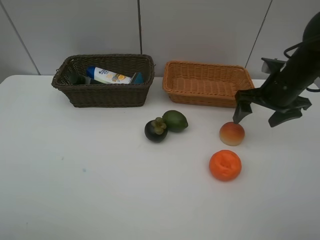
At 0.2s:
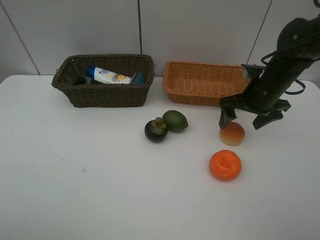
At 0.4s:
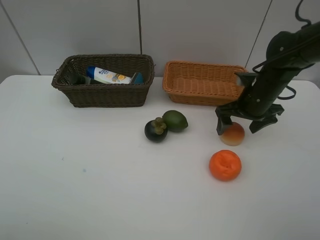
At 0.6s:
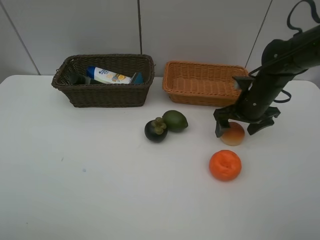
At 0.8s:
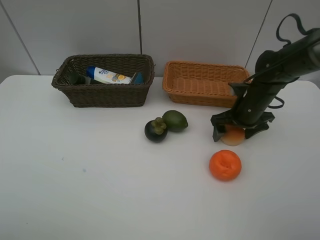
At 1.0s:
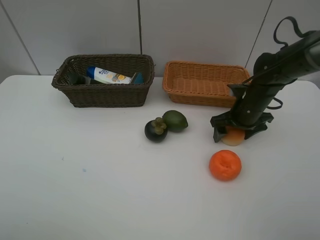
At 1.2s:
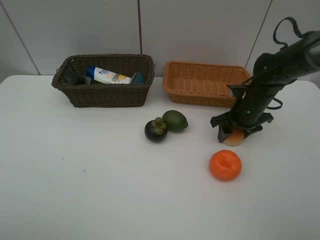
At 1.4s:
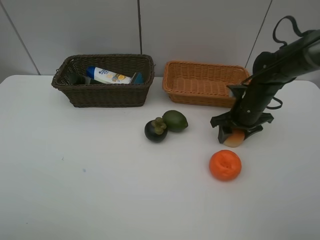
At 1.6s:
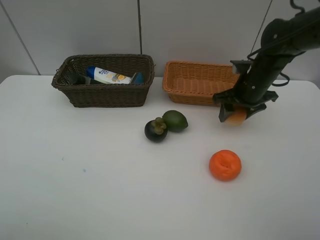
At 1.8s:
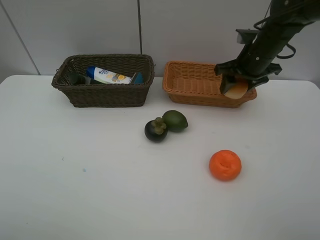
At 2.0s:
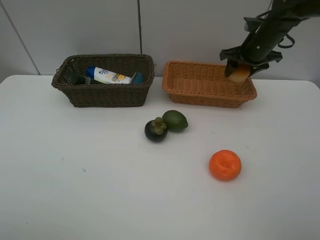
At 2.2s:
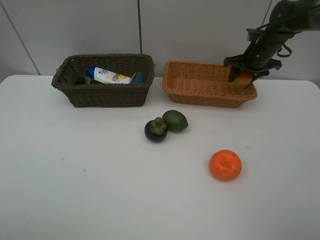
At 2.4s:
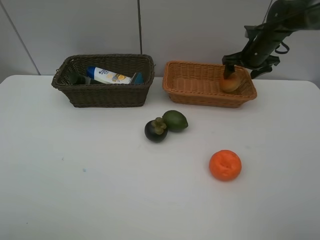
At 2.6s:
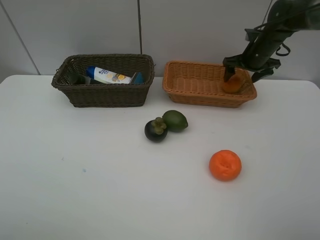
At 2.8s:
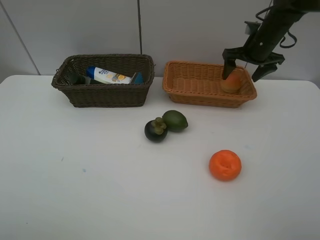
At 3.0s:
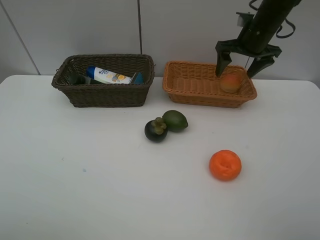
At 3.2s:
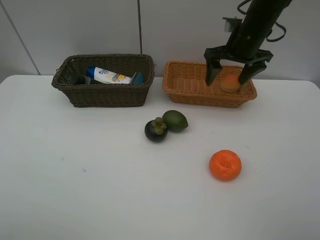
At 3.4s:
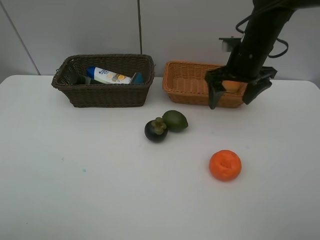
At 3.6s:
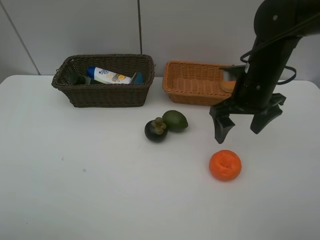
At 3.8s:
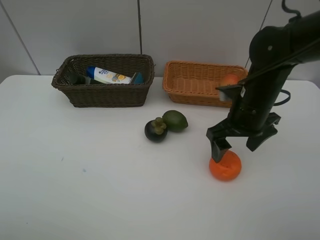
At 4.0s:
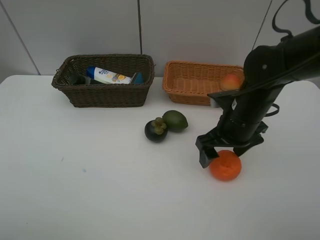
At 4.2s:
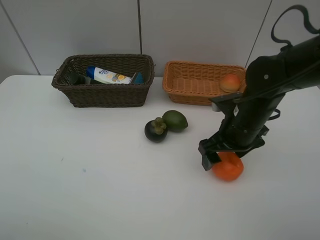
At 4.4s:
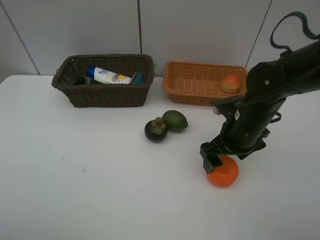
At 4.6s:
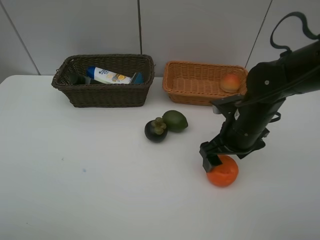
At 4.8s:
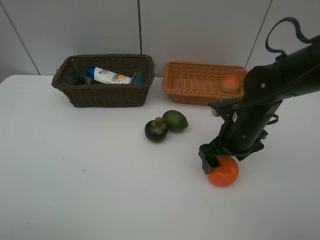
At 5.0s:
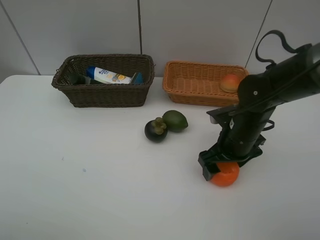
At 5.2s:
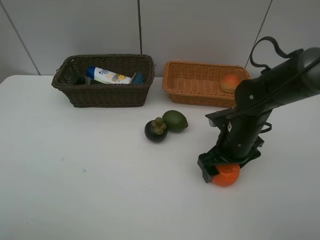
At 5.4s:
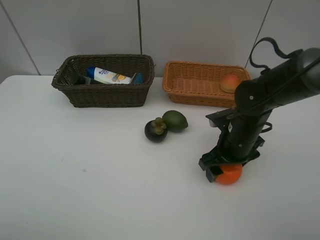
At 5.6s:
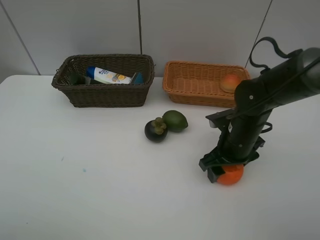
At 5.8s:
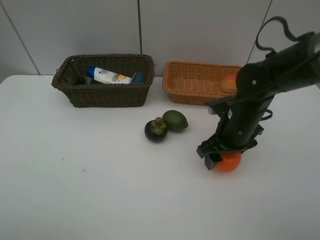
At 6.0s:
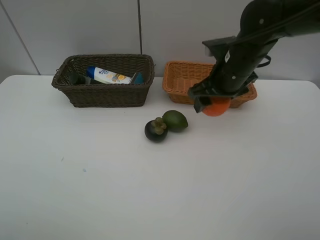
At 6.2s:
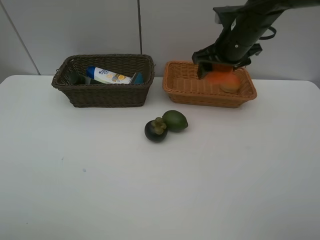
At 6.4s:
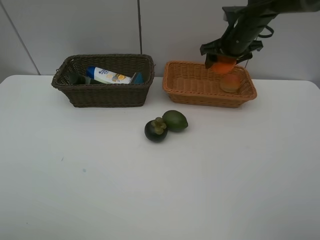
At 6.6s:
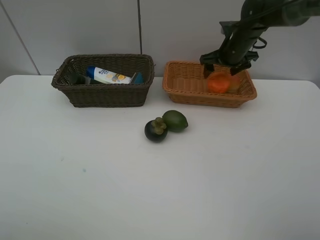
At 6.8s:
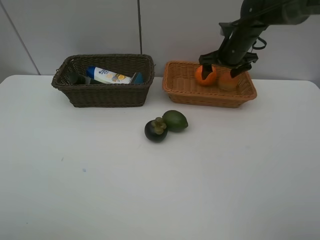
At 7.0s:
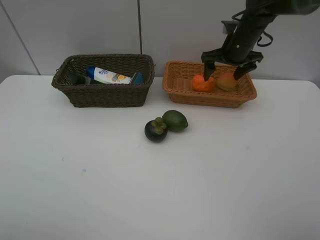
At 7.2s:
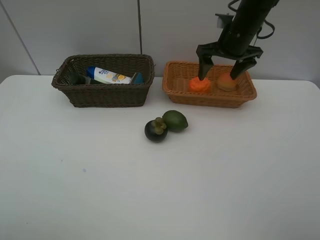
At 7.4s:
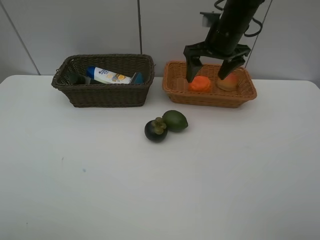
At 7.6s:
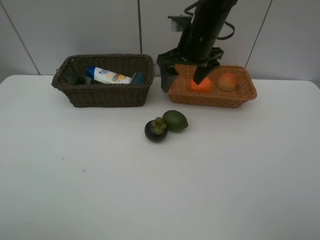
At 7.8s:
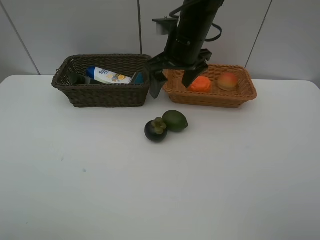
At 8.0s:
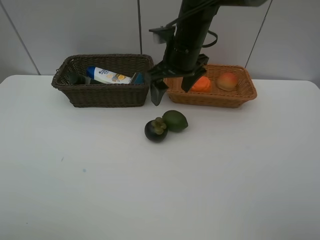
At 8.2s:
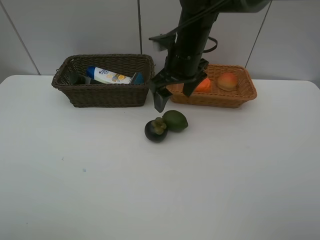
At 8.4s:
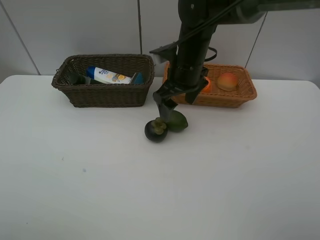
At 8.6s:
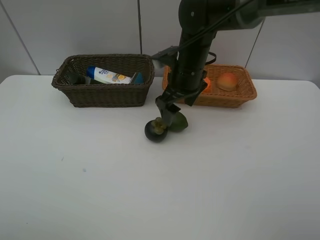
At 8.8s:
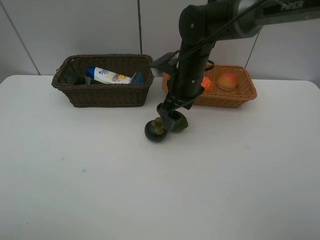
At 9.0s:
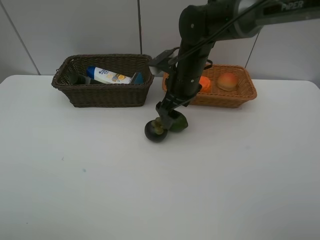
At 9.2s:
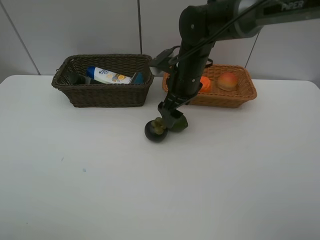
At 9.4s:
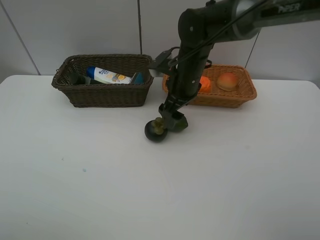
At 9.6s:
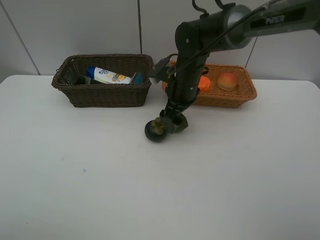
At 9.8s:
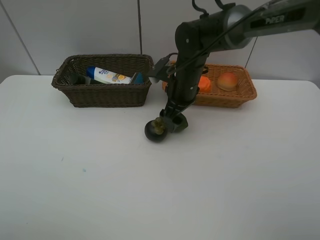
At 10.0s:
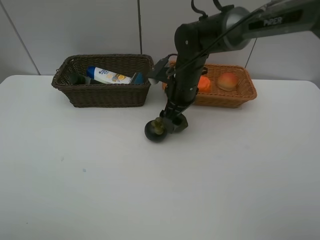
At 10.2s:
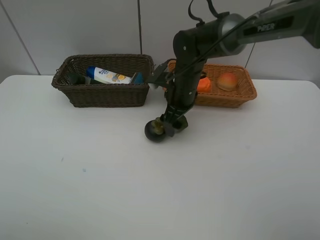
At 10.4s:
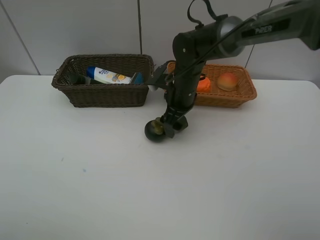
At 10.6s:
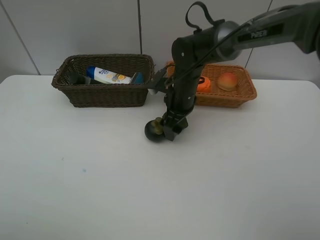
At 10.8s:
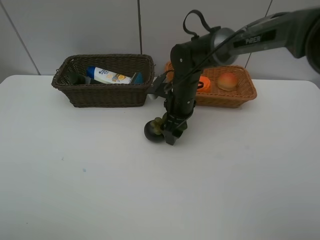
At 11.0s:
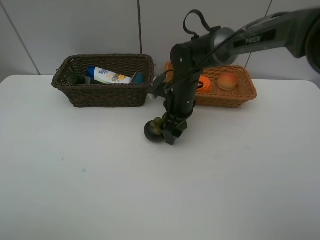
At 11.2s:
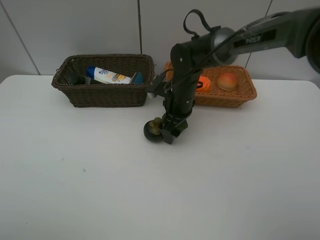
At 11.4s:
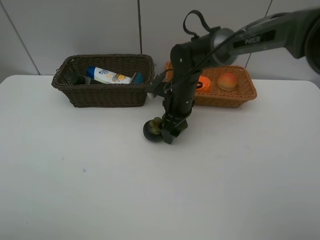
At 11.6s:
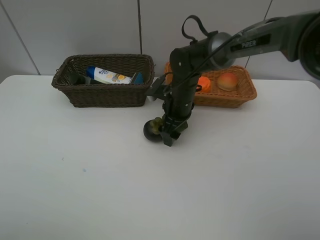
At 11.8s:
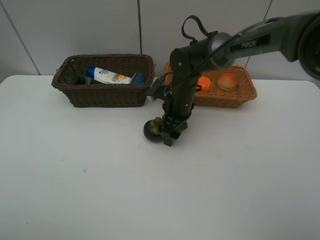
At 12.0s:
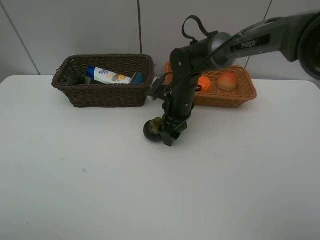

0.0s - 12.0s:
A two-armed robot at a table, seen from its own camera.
Task of the whole recording: Place multiple objects separately in different baskets.
Step, 1.6s - 2.6s: Place the egg yolk pastry in the light basket with right gripper.
Step, 2.8s - 5.8s: Pick up the orange with right gripper.
Step, 6.0s - 6.8s: Place the orange in the light basket with right gripper.
0.0s - 1.6s: The right gripper travels downward and back again, approximately 10 cm each way, and closes.
1.6s - 3.0s: The right gripper heads upward and forward, covering about 10 cm, and opens its fingers.
3.0s - 4.4s: The right gripper shifts approximately 20 cm backward and downward.
4.4s - 6.0s: The right gripper shifts approximately 10 cm forward and upward, and closes its fingers.
6.0s - 7.6s: The right gripper shifts approximately 10 cm to the left, goes forward and returns, some 15 cm each way, and opens.
7.6s - 9.0s: The right gripper heads downward, covering approximately 5 cm.
9.0s - 10.4s: The grippers move only a little.
10.4s - 12.0s: There are only small adjustments of the grippers.

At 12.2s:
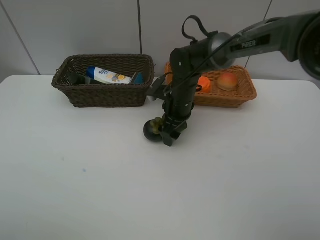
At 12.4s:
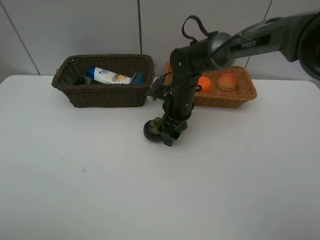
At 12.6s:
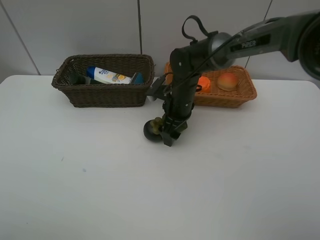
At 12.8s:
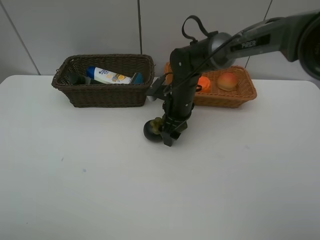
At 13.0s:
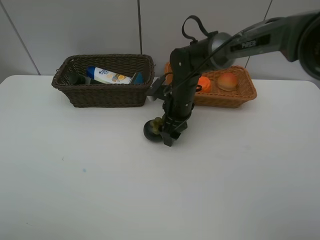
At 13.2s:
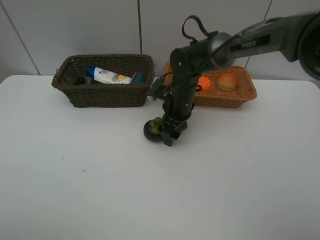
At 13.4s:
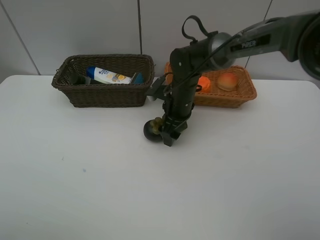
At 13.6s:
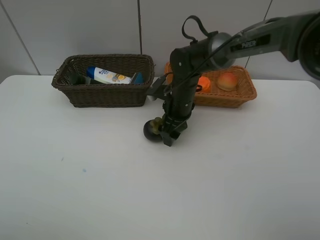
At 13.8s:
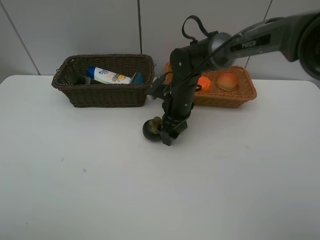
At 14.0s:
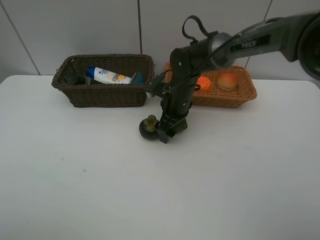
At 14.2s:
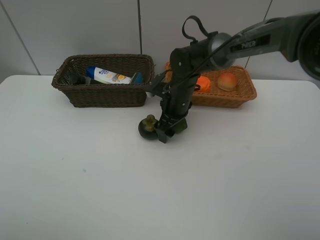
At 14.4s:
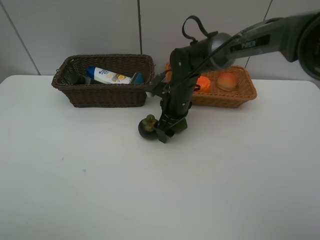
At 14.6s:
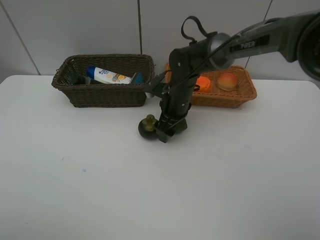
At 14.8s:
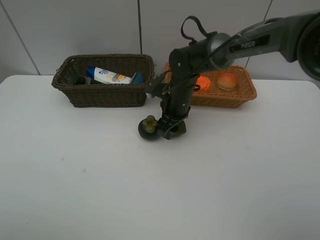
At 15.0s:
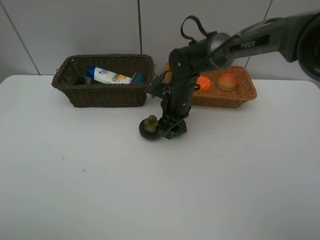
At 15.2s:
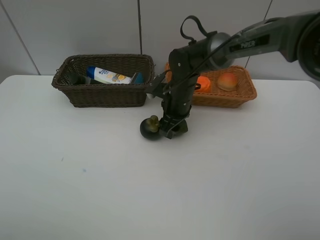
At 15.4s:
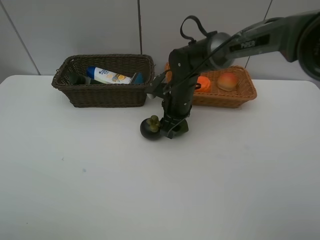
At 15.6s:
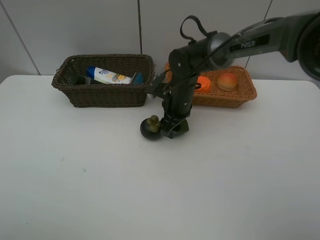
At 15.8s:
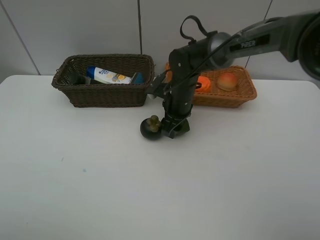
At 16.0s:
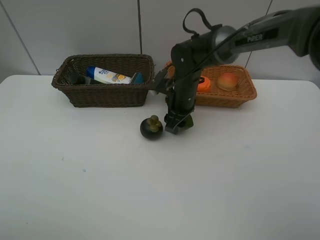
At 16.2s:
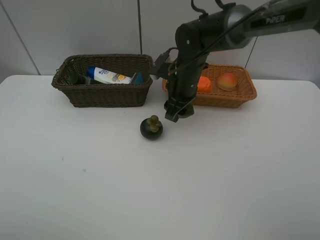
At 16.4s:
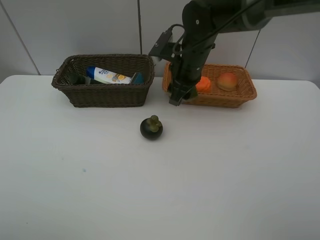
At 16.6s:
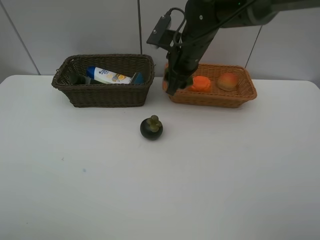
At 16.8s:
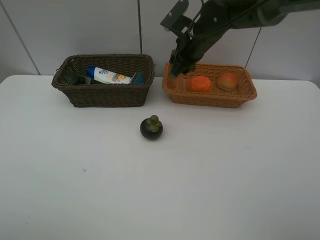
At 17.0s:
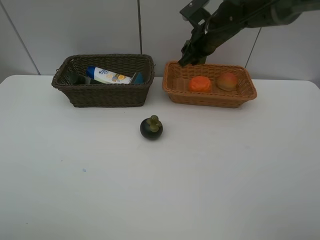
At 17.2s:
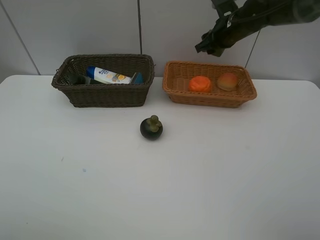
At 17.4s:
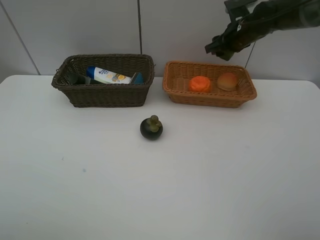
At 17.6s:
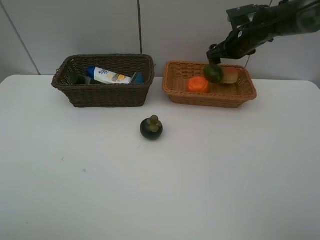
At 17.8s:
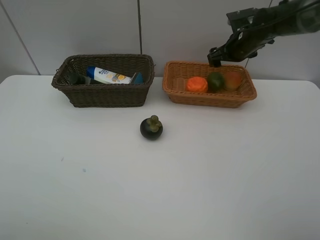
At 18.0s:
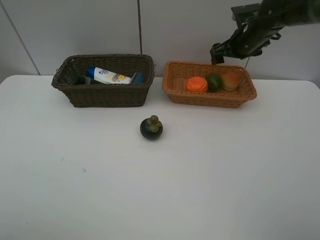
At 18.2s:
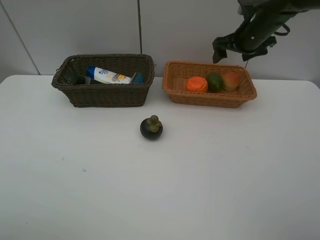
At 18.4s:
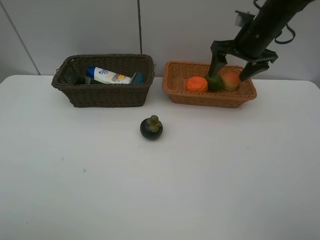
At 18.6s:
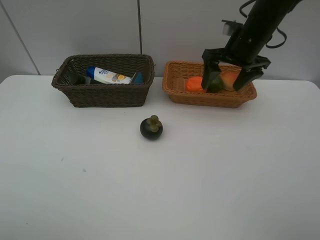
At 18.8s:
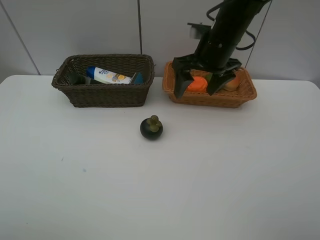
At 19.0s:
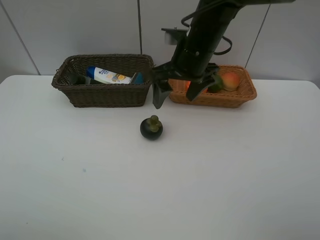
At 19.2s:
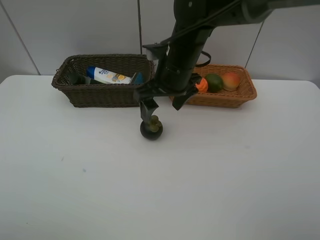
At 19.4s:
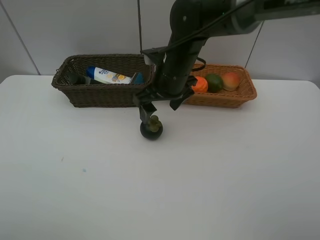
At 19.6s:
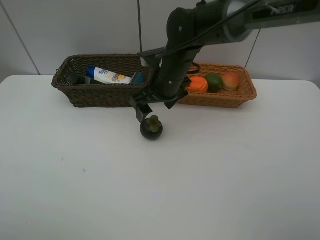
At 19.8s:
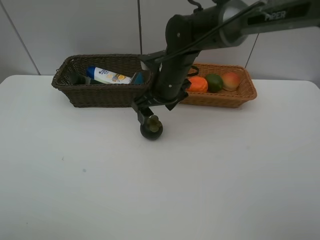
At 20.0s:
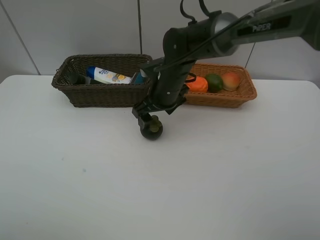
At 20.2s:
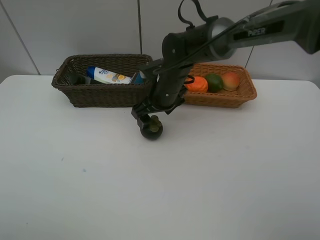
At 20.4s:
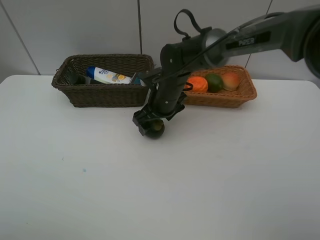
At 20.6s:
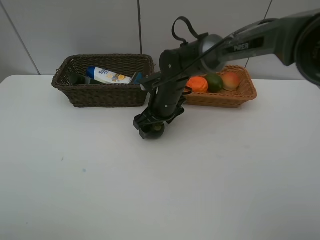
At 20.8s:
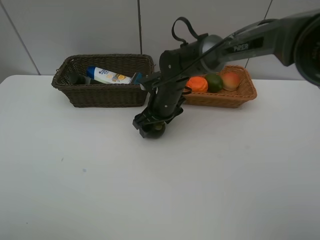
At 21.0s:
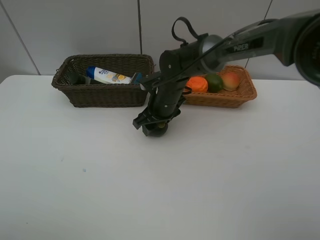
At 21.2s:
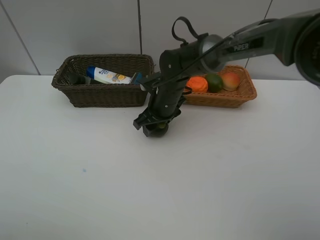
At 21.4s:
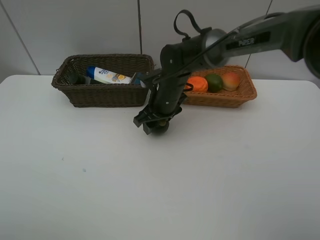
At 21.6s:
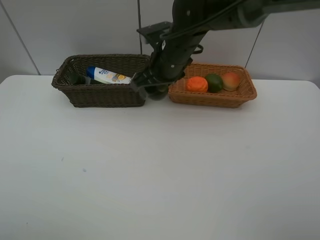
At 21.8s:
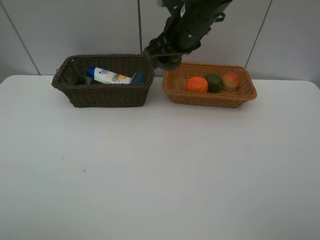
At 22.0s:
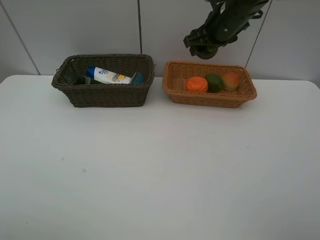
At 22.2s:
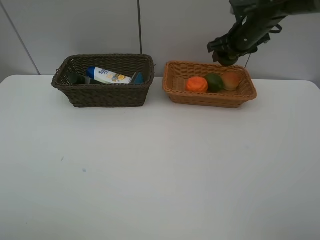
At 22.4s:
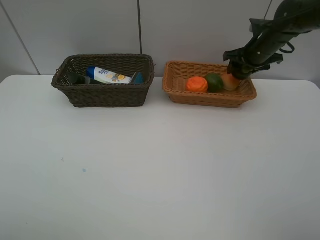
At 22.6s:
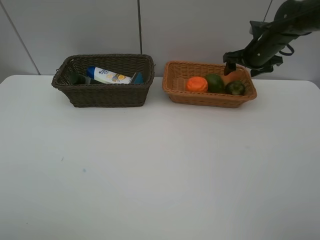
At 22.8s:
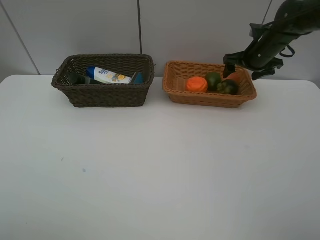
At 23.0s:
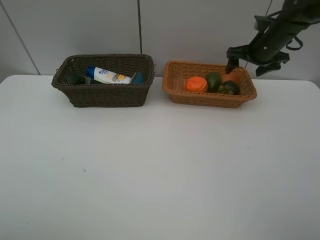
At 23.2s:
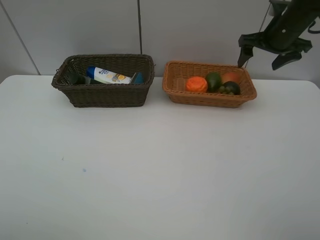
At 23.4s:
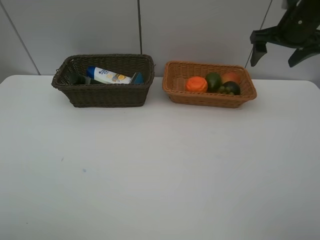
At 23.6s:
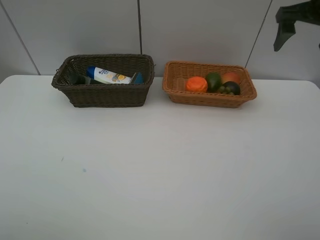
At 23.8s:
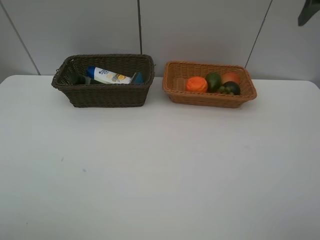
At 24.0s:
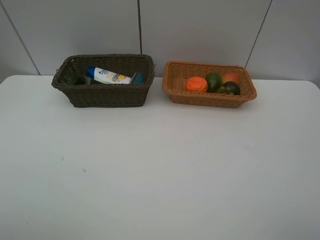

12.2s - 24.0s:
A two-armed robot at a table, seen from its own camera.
Task of the whole recording: Place multiple objects separately in different baskets.
Step, 12.2s - 16.2s: Pick up the lime with right gripper.
Step, 16.4s - 17.6s: Place the lime in the light basket with right gripper.
Step, 17.8s - 21.4s: Pick up the mangosteen with right gripper.
Step, 21.6s - 22.8s: Place the mangosteen in the light basket with right gripper.
12.2s - 13.6s: Both grippers stay put.
13.6s - 15.2s: The right gripper closes up.
15.2s - 16.6s: The right gripper moves upward, approximately 10 cm.
16.6s - 18.2s: The right gripper is displaced to the right by about 15 cm, and opens its fingers.
18.2s - 19.6s: The right gripper shifts roughly 20 cm to the left and backward.
19.6s - 21.0s: The right gripper goes some 5 cm downward, and closes.
21.0s - 22.6s: The right gripper moves to the right and forward, roughly 25 cm, and opens its fingers.
22.6s - 24.0s: The right gripper heads upward and backward, covering roughly 35 cm.
